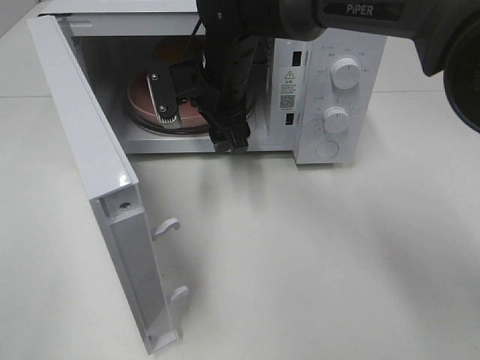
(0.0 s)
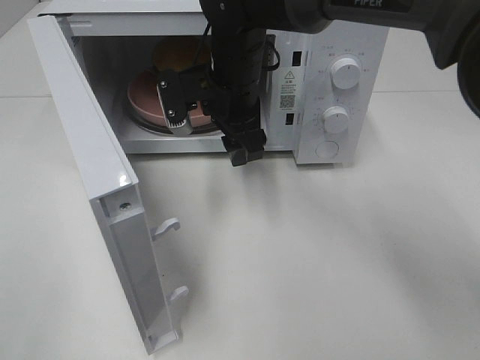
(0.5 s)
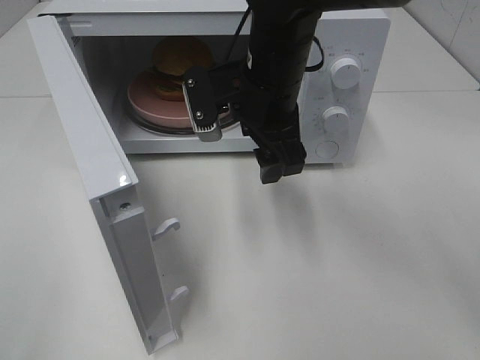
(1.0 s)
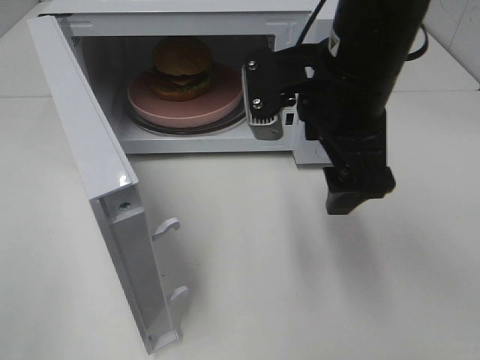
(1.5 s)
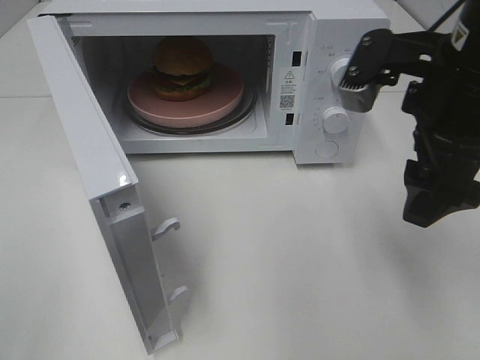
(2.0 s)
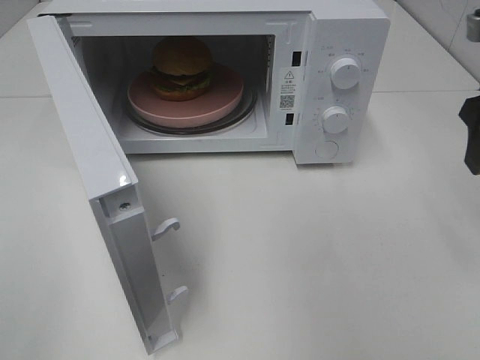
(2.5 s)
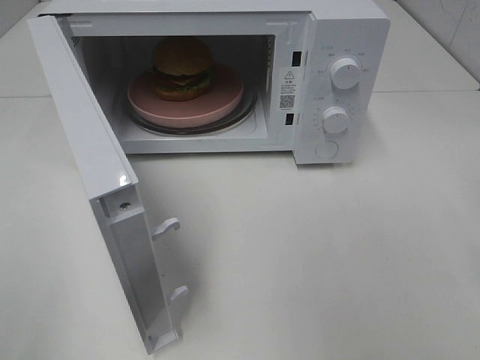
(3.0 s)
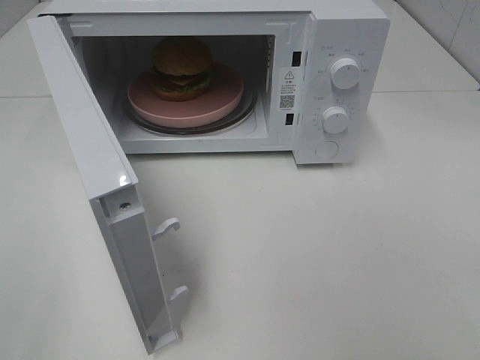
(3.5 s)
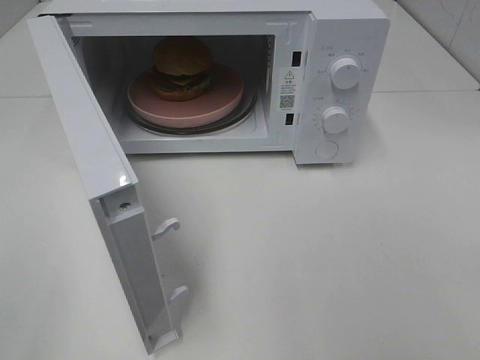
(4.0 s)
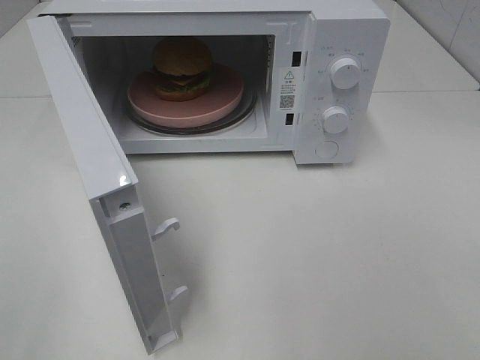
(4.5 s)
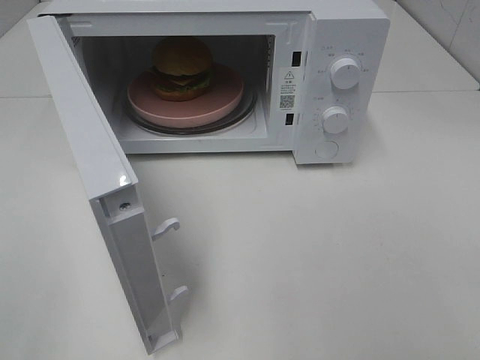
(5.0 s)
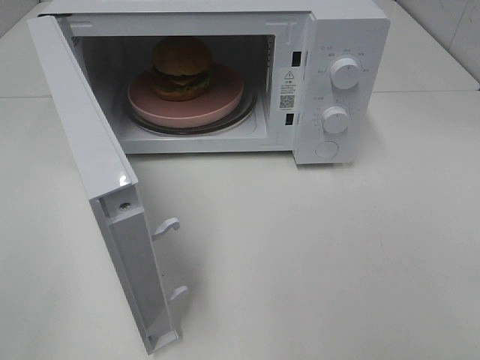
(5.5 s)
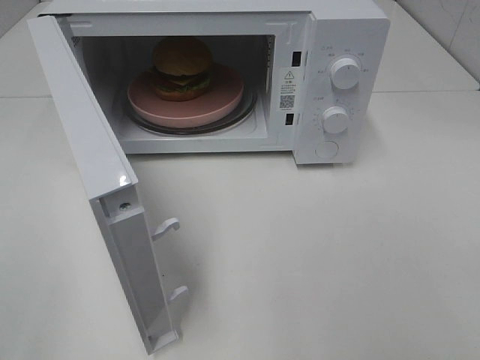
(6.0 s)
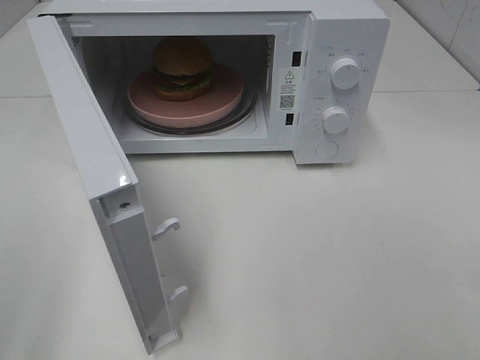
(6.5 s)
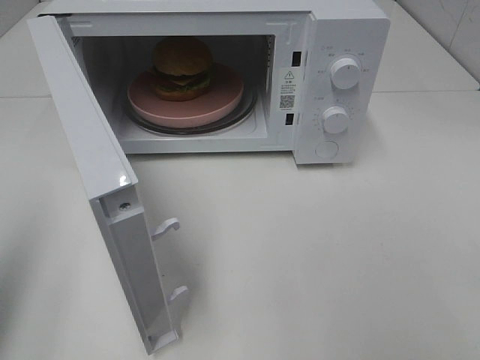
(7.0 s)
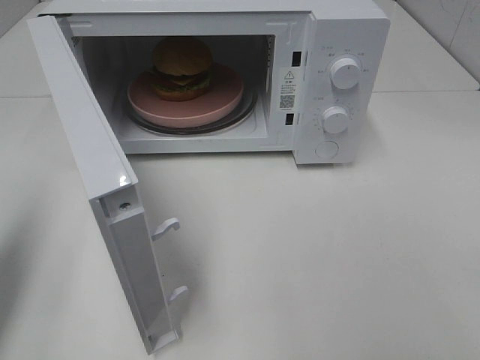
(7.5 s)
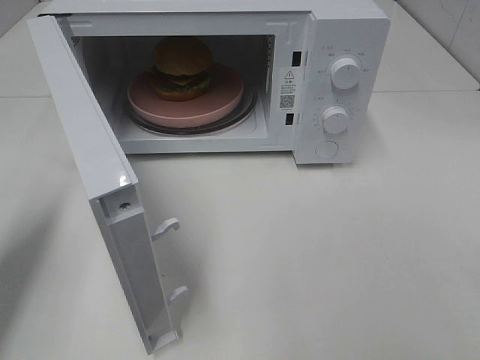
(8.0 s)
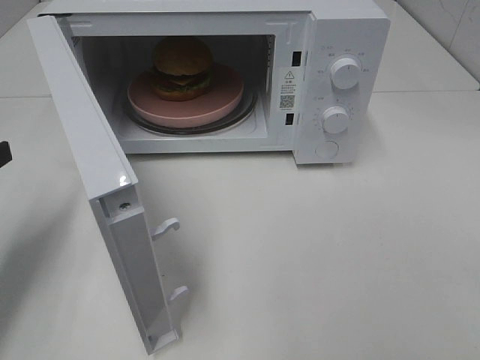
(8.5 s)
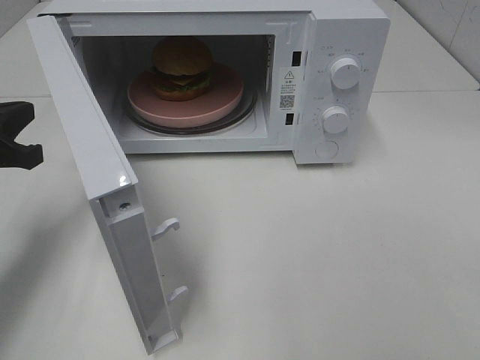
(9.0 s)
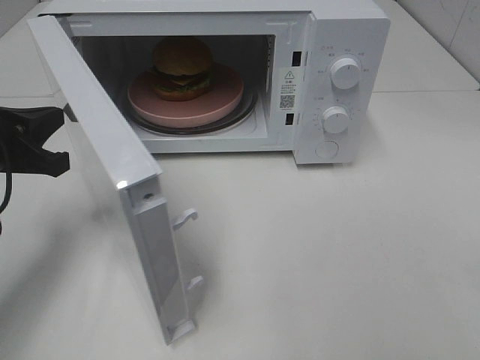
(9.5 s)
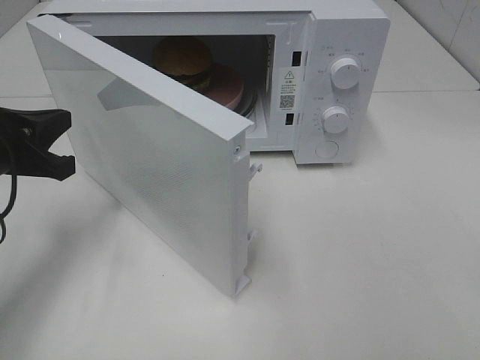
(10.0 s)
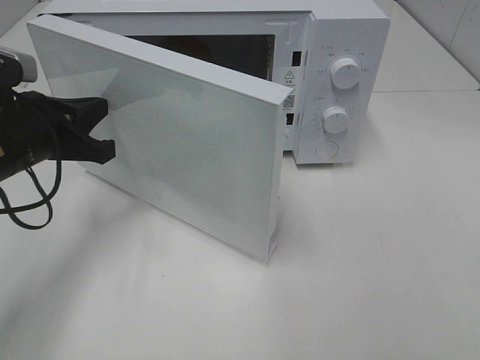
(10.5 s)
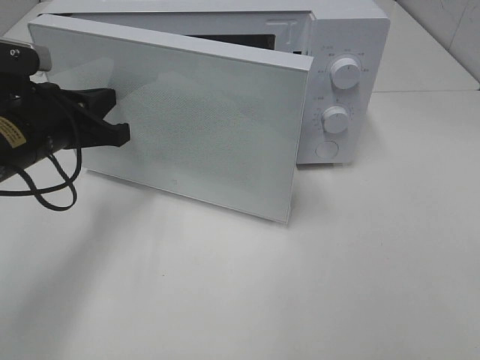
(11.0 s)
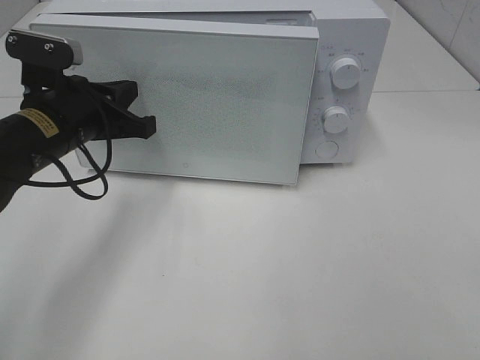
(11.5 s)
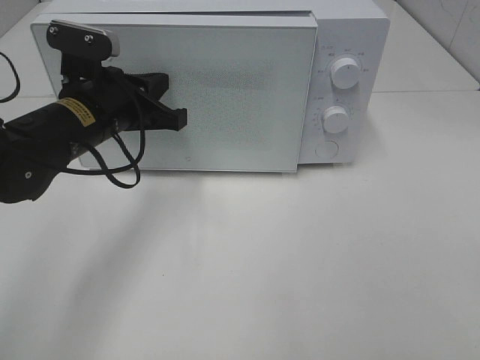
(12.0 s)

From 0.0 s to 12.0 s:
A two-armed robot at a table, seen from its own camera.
Task of the whole recording: Heat the burger.
From 0.0 s to 2.0 s: The right gripper moves to the right, backward and upward, about 25 cm.
From 2.0 s to 4.0 s: The right gripper moves backward and to the right, approximately 25 cm.
From 4.0 s to 6.0 s: Both grippers stay about where they are.
From 6.0 s to 8.0 s: The left gripper goes approximately 20 cm forward, and closes its fingers.
From 8.0 s to 10.0 s: The left gripper heads downward and to the right, covering some 10 cm.
From 10.0 s to 12.0 s: The left gripper is displaced to the right and forward by roughly 10 cm.

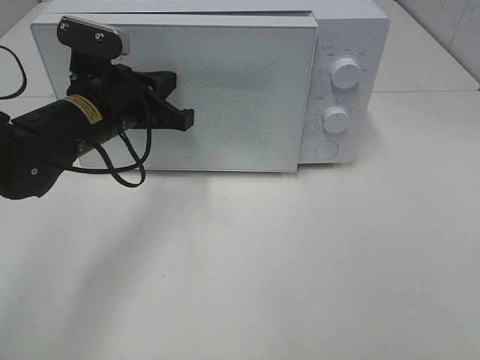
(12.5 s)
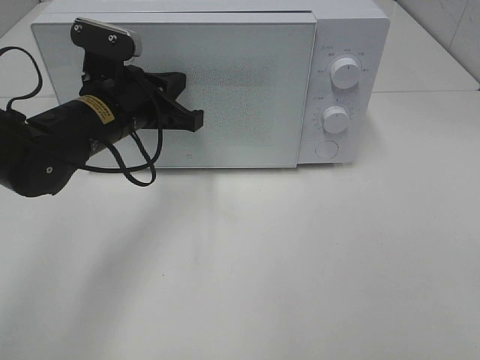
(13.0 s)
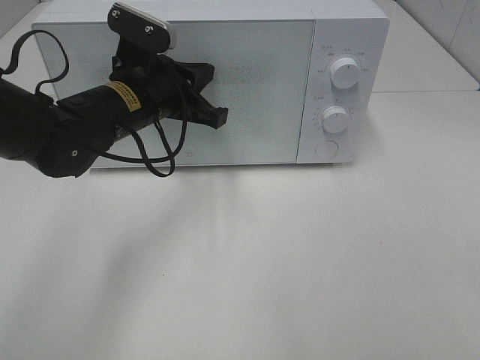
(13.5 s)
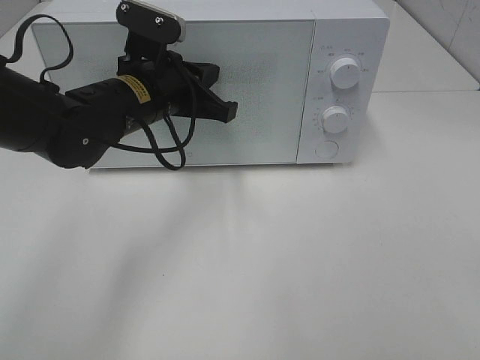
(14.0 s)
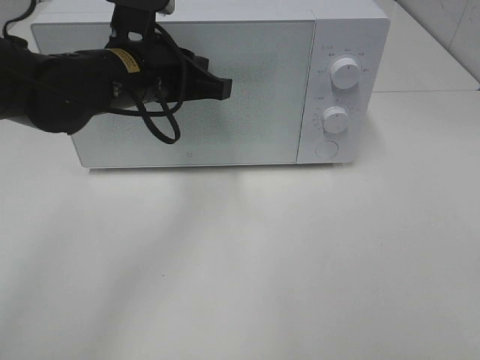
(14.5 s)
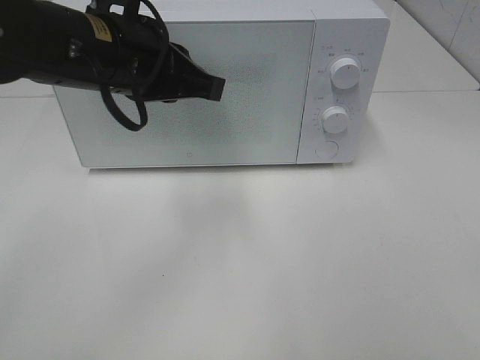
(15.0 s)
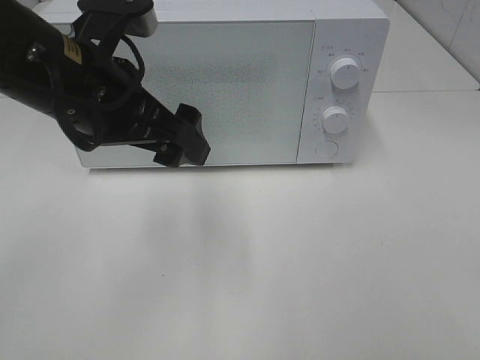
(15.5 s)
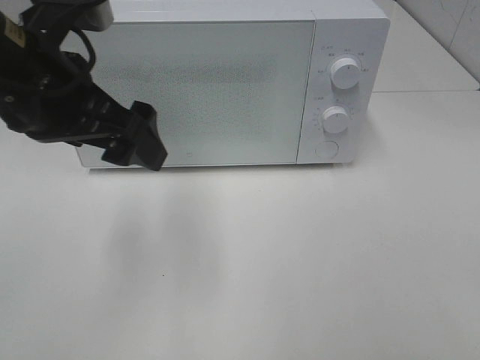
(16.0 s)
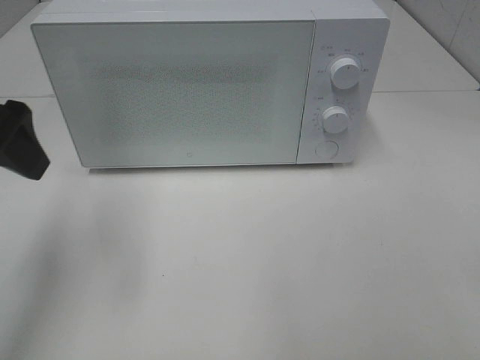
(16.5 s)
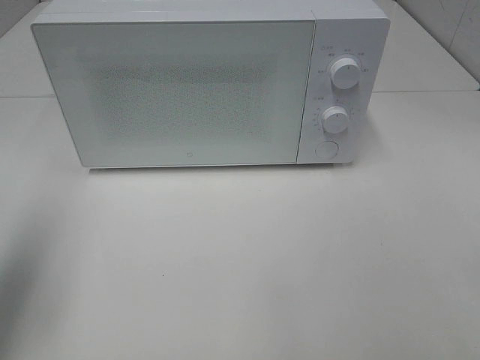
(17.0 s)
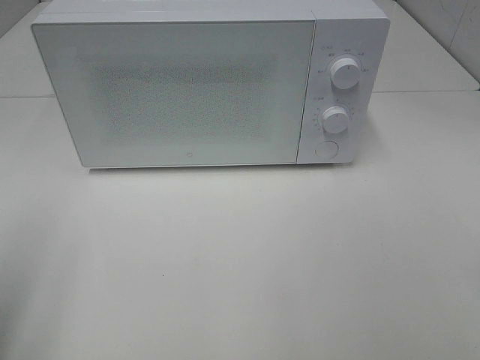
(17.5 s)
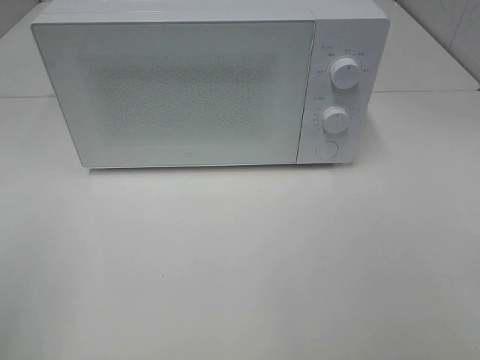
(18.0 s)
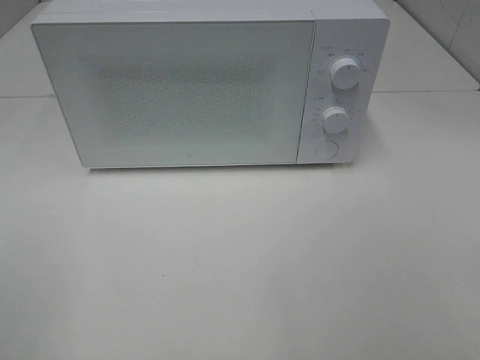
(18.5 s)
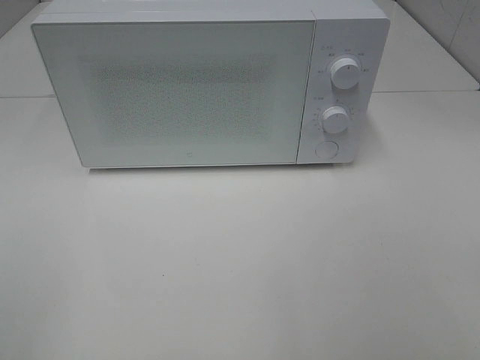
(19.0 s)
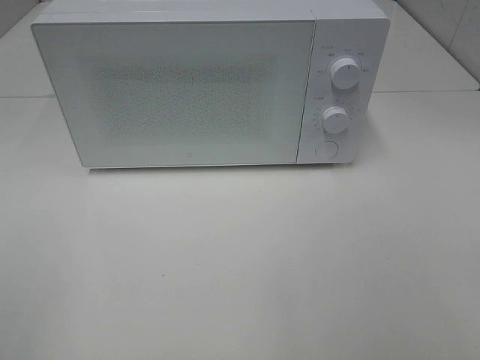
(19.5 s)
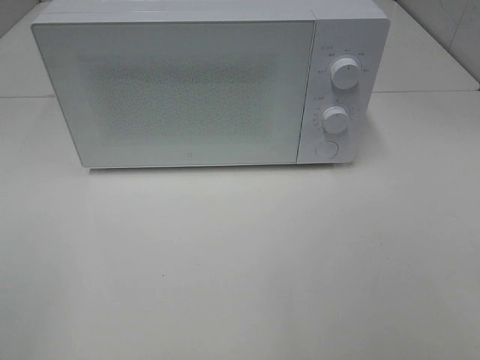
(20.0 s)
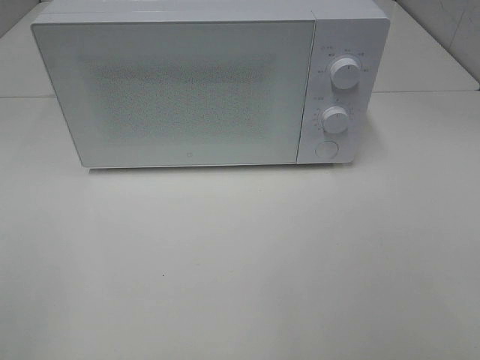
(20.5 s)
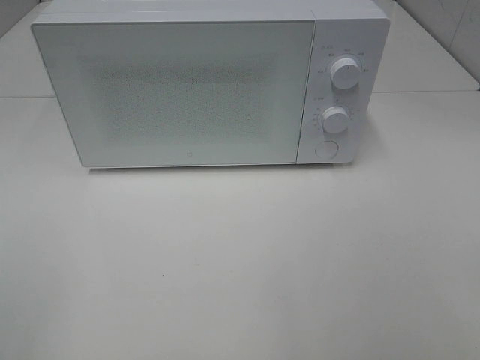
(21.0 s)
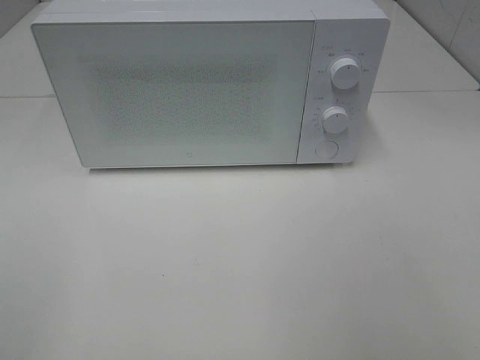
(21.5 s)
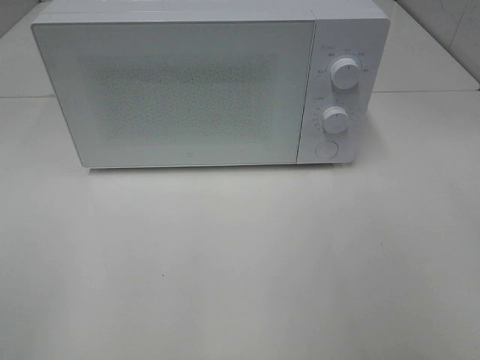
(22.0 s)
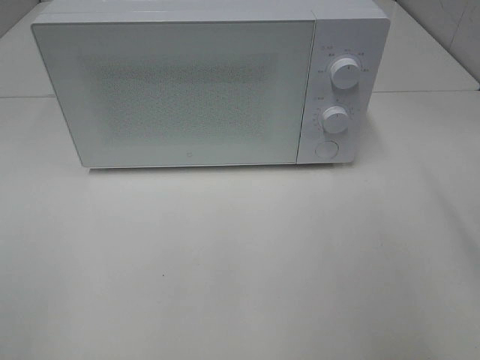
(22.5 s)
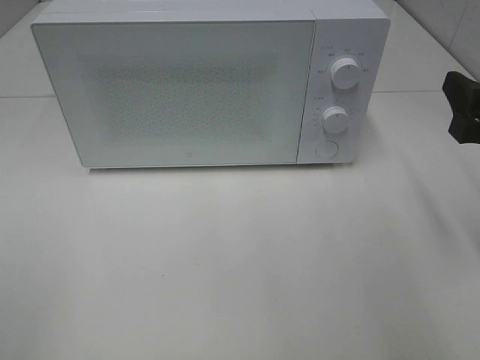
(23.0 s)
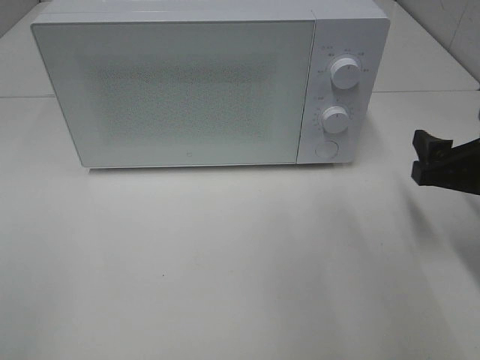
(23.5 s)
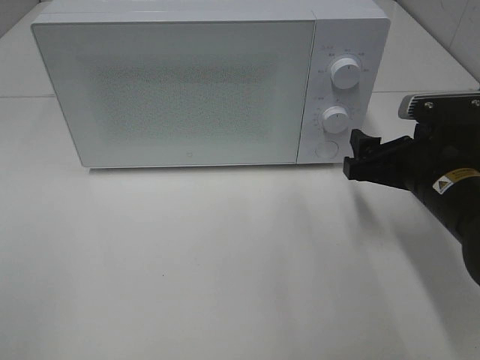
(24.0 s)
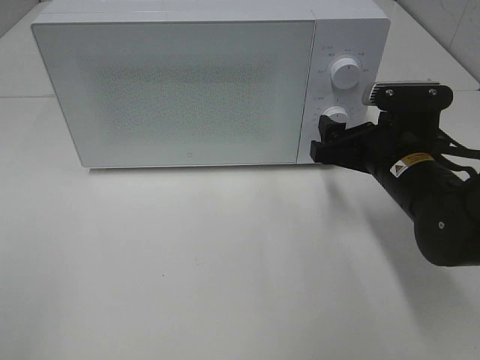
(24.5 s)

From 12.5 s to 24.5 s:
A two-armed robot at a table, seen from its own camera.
Task of the whole recording: Heat the burger.
From 12.5 s to 14.5 s: The left gripper shifts by about 5 cm.
From 14.5 s to 16.5 s: The left gripper travels to the left, backward and upward by about 20 cm, and opens up.
From 16.5 s to 18.5 s: The left gripper moves backward, approximately 25 cm.
From 18.5 s to 20.5 s: Both grippers stay put.
From 22.5 s to 24.5 s: The right gripper moves downward, forward and to the left, about 20 cm.

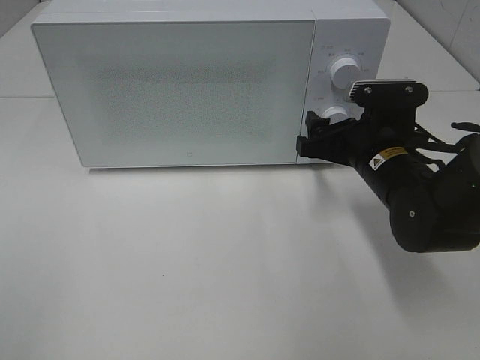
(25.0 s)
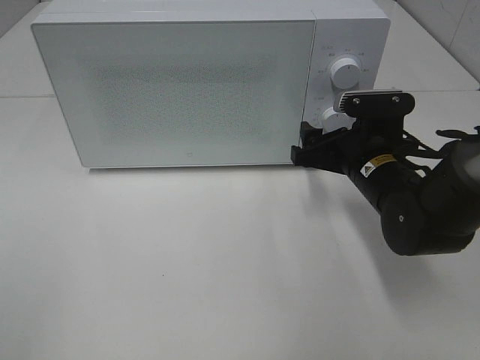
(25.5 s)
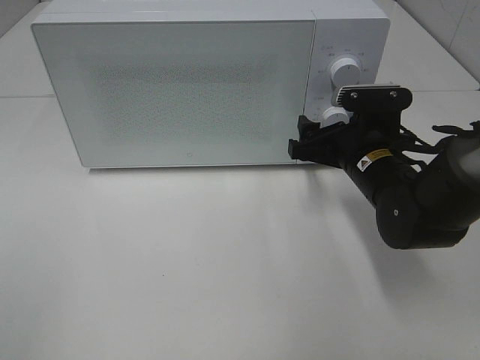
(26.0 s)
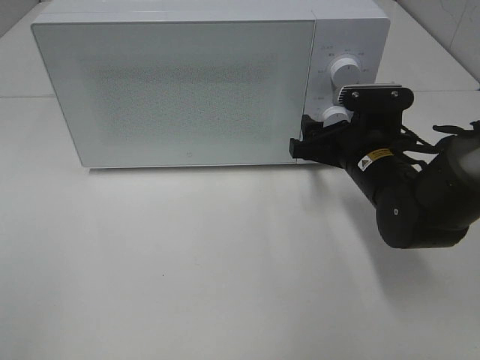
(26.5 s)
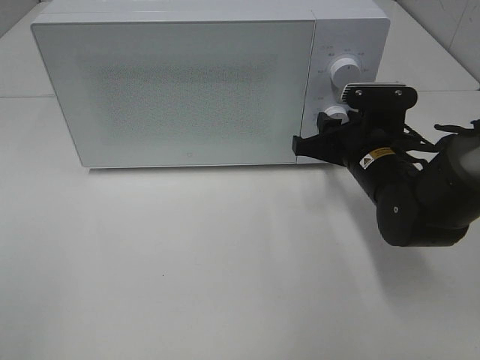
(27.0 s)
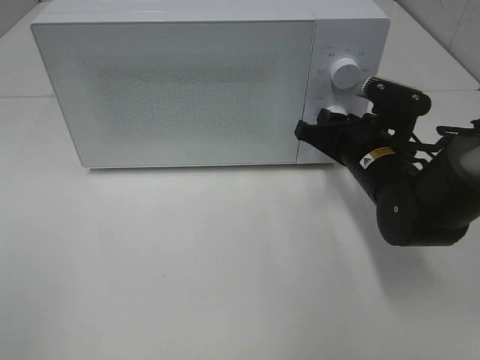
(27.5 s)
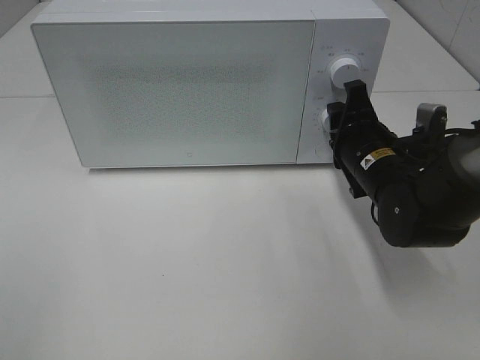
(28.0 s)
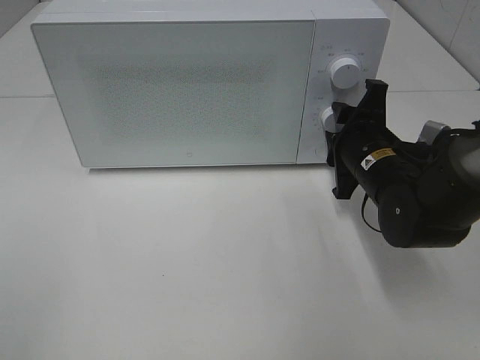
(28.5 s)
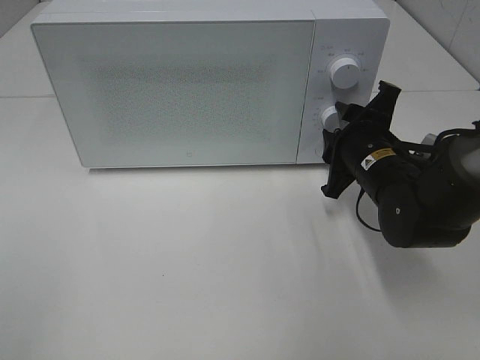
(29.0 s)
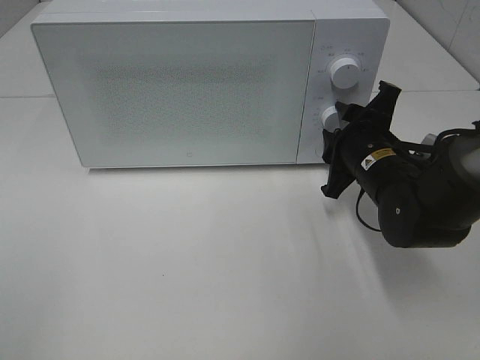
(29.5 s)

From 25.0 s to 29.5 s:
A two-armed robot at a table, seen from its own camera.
Task of the whole recording: Heat the burger.
From 25.0 s to 27.0 s: The right gripper closes up.
